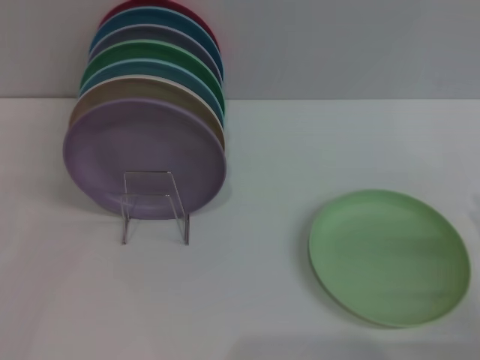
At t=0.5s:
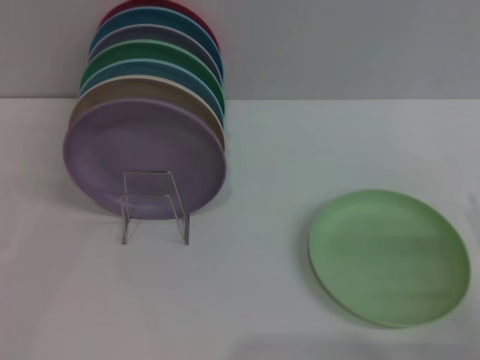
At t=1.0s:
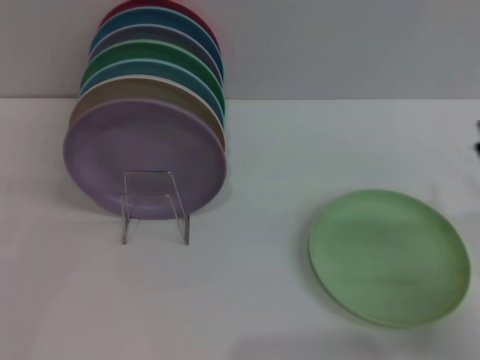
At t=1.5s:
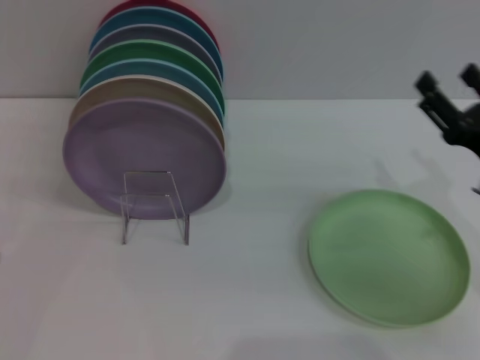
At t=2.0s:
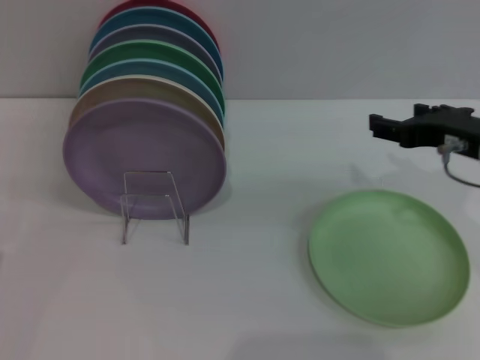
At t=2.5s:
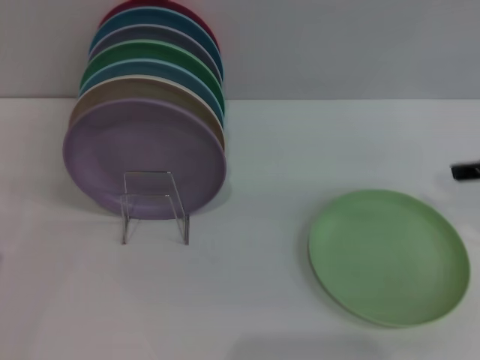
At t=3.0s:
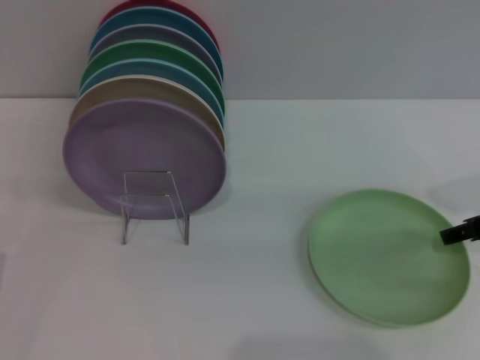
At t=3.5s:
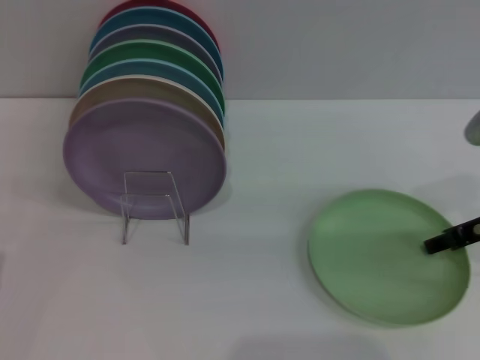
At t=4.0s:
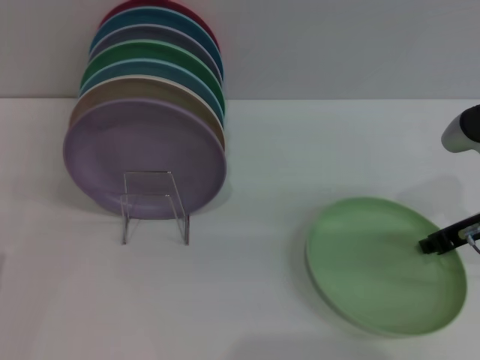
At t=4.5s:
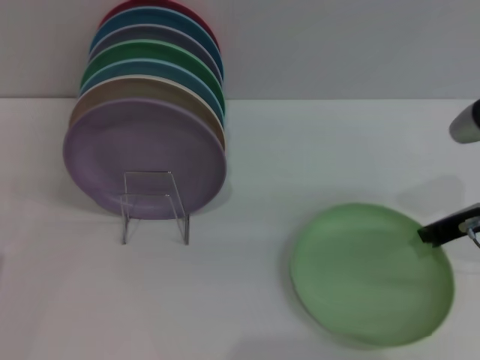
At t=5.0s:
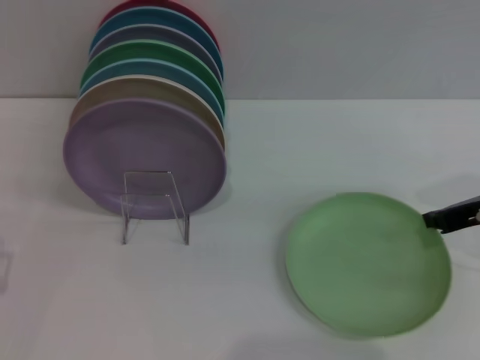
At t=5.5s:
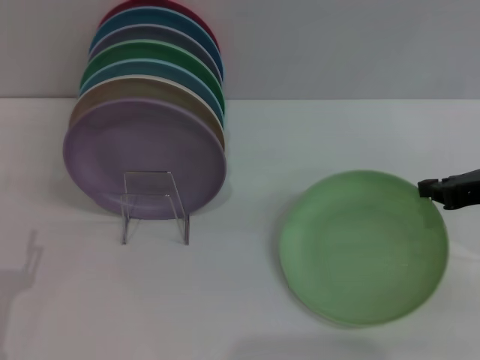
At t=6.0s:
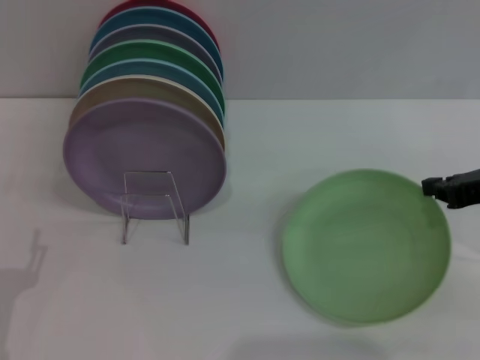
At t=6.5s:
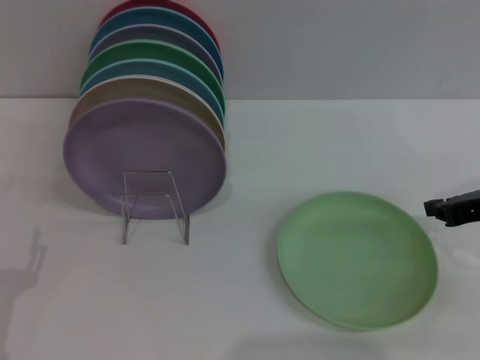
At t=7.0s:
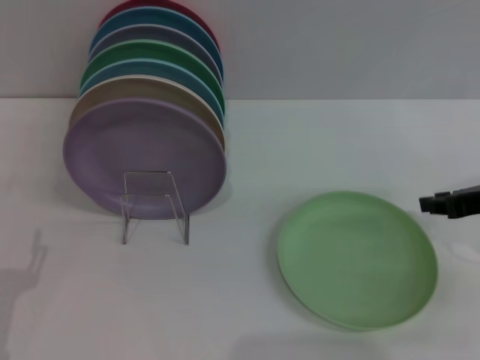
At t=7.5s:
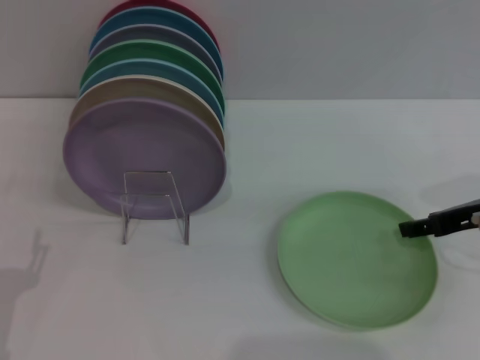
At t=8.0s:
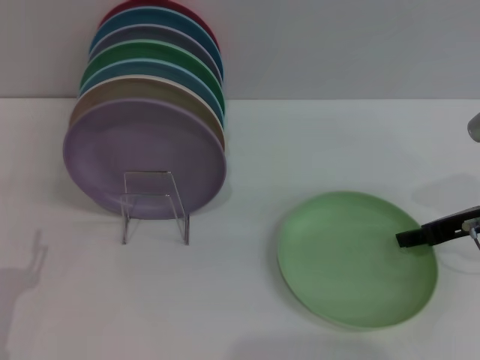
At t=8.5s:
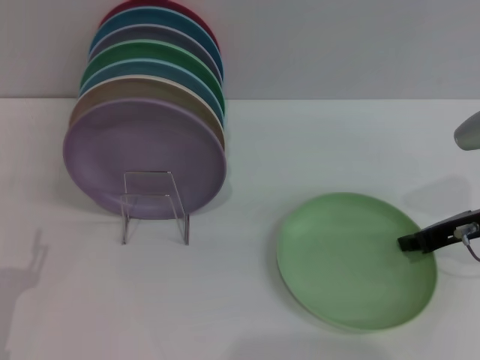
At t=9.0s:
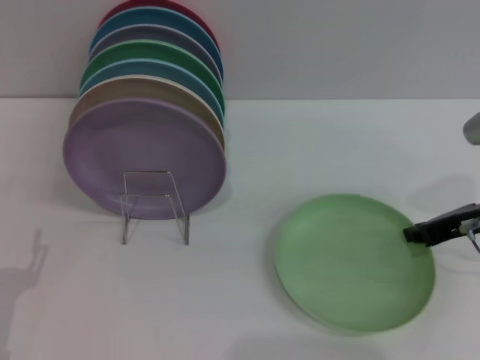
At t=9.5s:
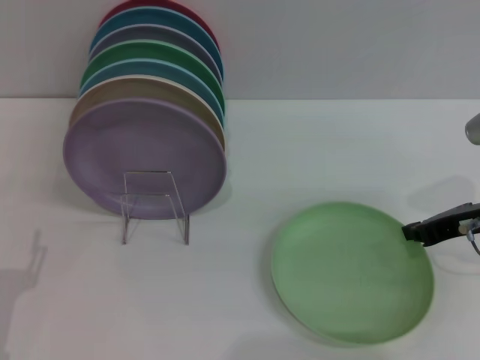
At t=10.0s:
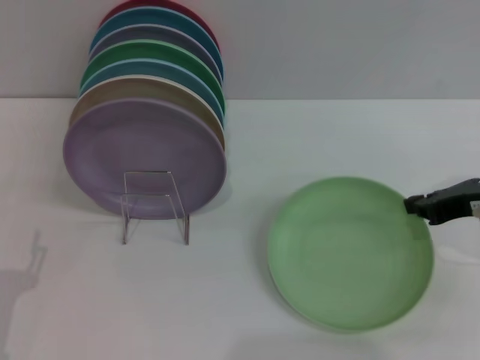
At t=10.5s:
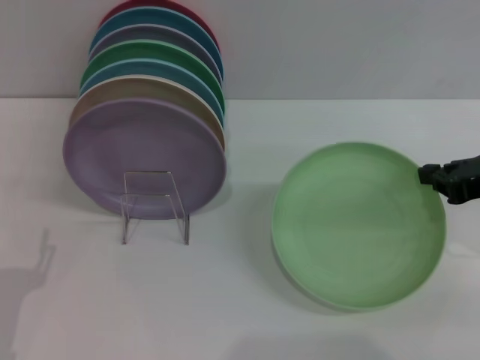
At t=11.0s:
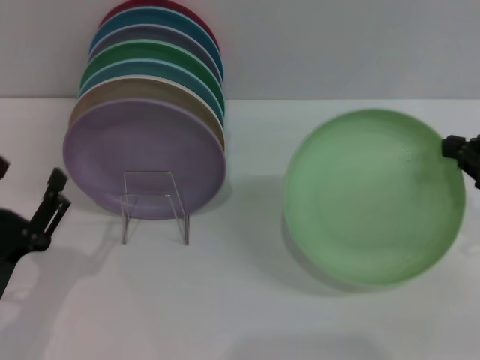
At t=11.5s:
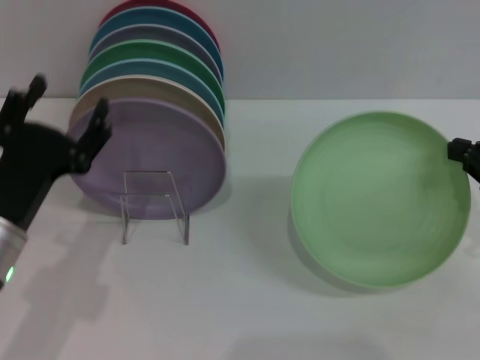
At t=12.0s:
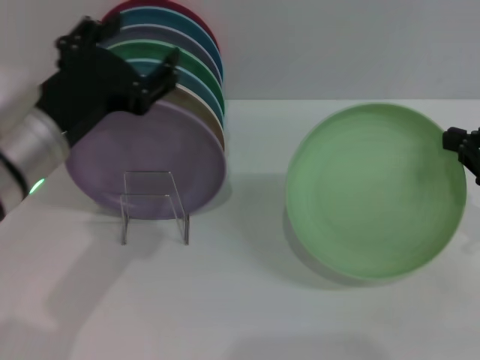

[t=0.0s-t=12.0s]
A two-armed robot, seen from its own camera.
Task of the whole recording: Grip the plate with one hand, pass it to the other, then set it on the shelf.
Step, t=0.0s to t=10.5s: Pick up the plate with the right gripper.
t=0.0s to t=2.0s: The right gripper shifts roughly 20 cm upward, forward and to the left.
t=2.0s to t=4.0s: The right gripper moves about 5 cm, and closes up.
t=4.0s to t=6.0s: The right gripper changes place by some 5 cm, and closes its fingers.
t=6.0s to t=8.0s: The right gripper moves roughly 5 cm, and opens.
t=8.0s to t=10.0s: The right gripper closes its fingers.
t=10.0s to t=12.0s: The left gripper travels upward, forward and to the right by approximately 25 cm. Meanwhile the right gripper shifts by approximately 5 cm.

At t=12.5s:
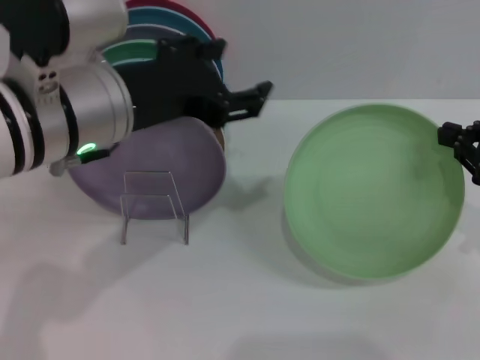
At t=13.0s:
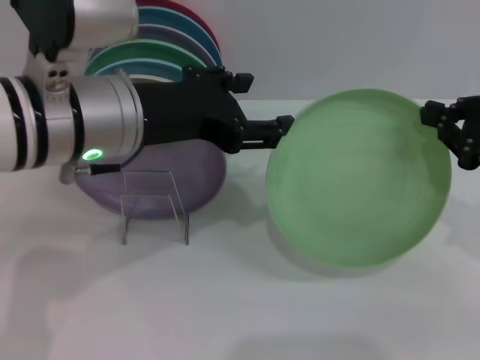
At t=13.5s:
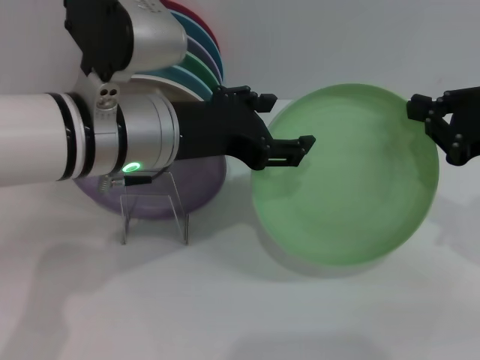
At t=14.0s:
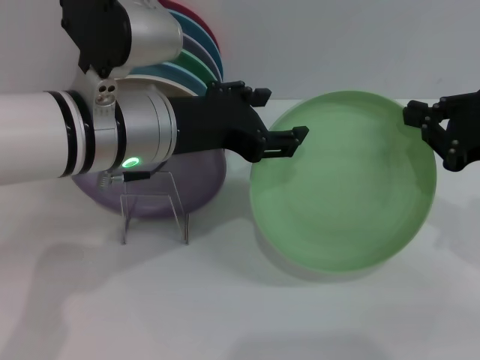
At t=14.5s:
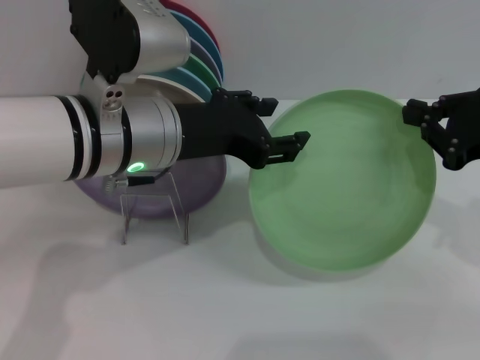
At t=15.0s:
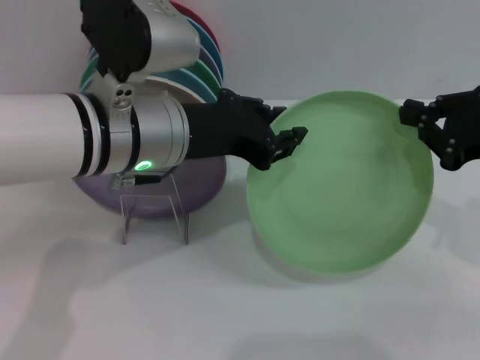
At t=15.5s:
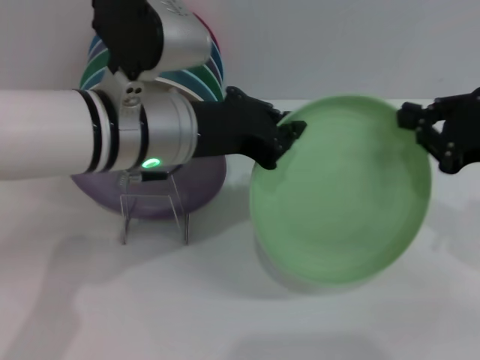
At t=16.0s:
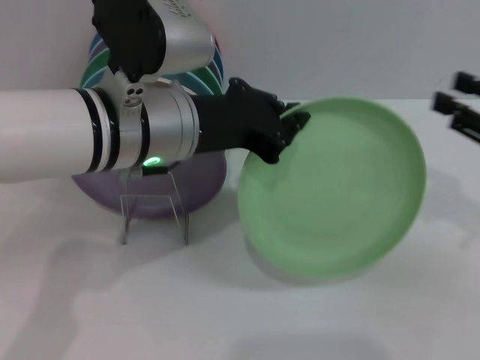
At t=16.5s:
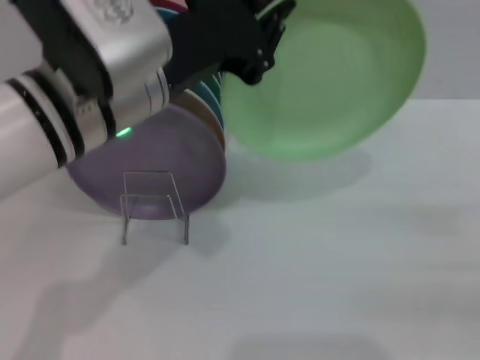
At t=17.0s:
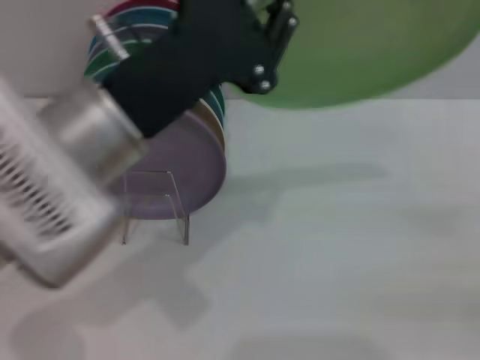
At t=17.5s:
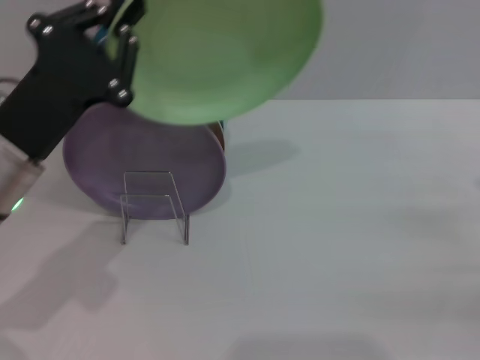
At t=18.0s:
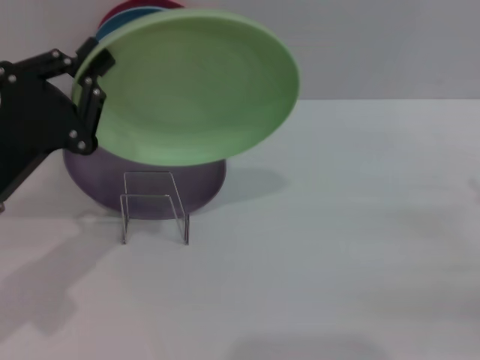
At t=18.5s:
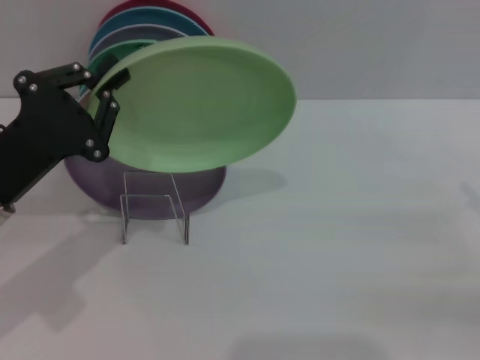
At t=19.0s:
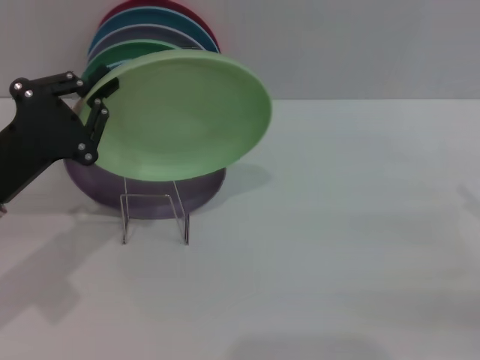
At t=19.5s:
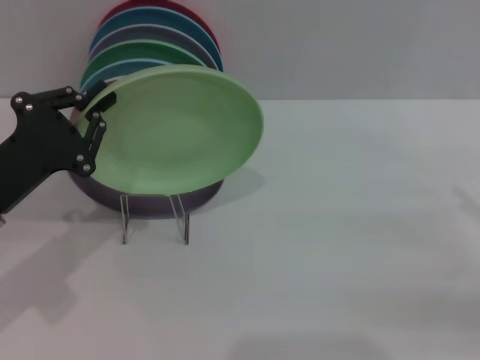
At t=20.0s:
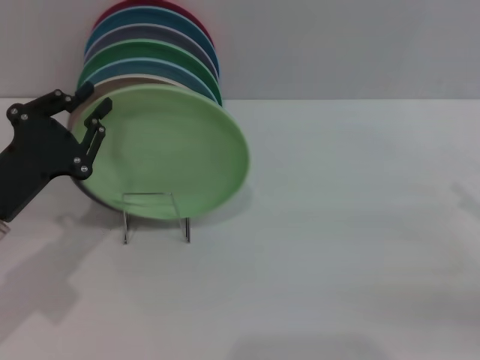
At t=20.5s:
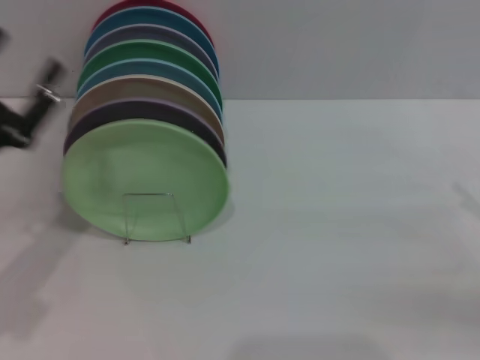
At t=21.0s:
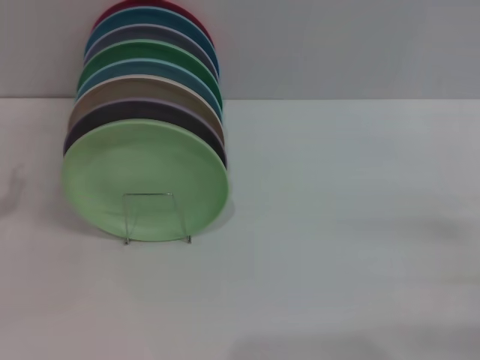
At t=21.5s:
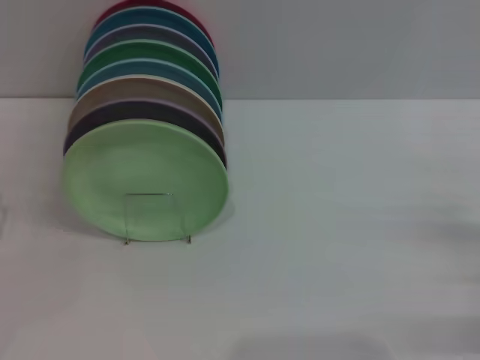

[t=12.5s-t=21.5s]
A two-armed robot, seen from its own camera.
Task of the whole recording: Grip the plate with one hand, pass it to the other, then set it on the shelf.
Step, t=12.5s to t=16.0s: Pass the plate from the right gripper to the left gripper.
Step, t=16.5s to t=20.0s: Place the plate on the shelf with the left gripper.
t=14.5s to t=17.0s: The left gripper goes roughly 5 cm backward, and closes its fingers; the right gripper shifts approximately 15 cm to the right, backward and downward, and opens its fingers.
t=17.0s to t=19.5s: The left gripper goes roughly 20 cm to the left and downward.
t=19.5s to t=21.5s: The right gripper moves downward, about 10 cm, while the left gripper moves downward, to the left and backward, roughly 10 cm, and opens its fingers.

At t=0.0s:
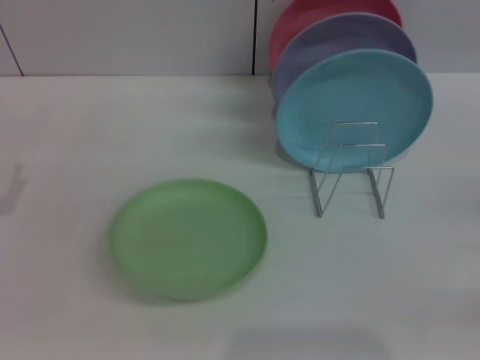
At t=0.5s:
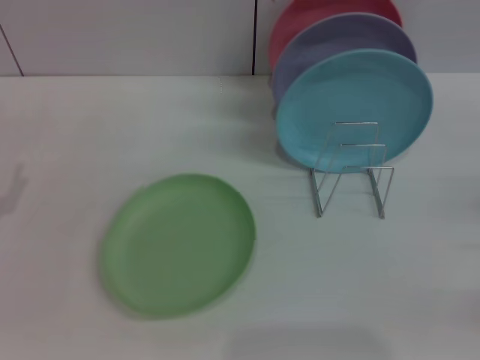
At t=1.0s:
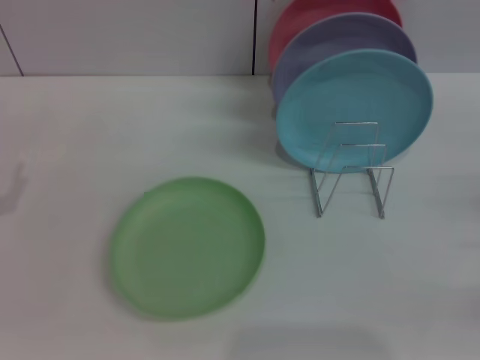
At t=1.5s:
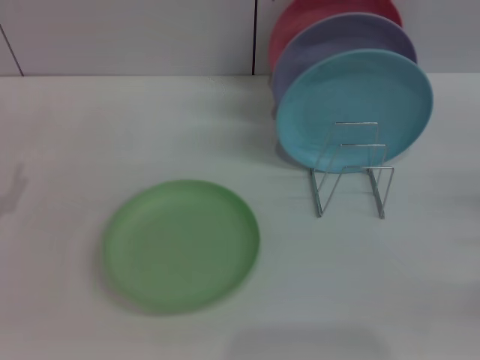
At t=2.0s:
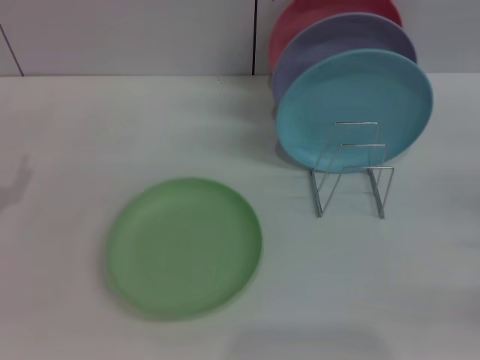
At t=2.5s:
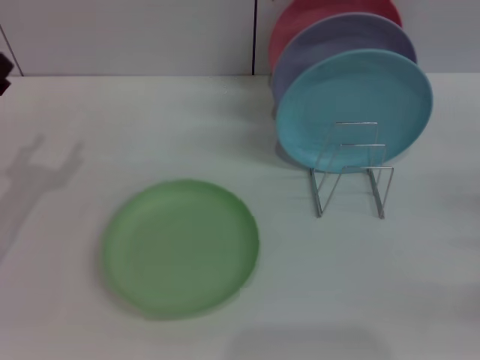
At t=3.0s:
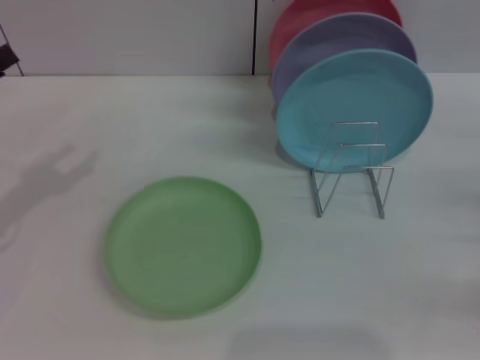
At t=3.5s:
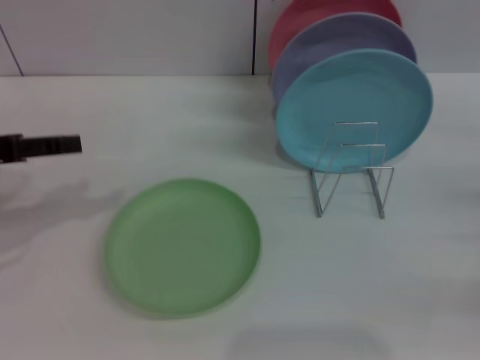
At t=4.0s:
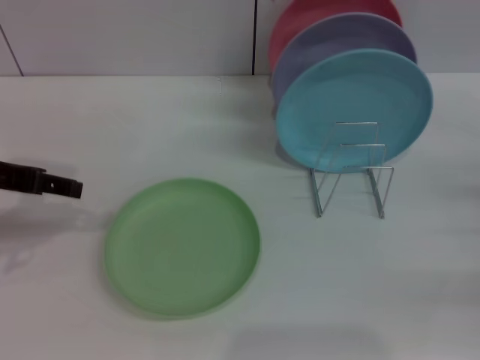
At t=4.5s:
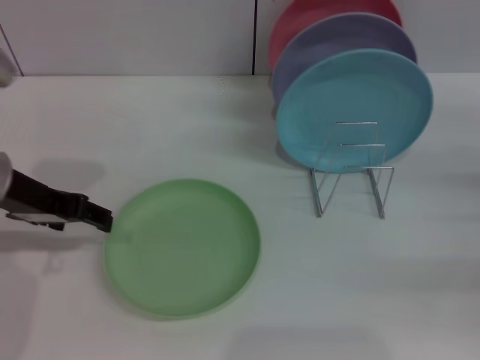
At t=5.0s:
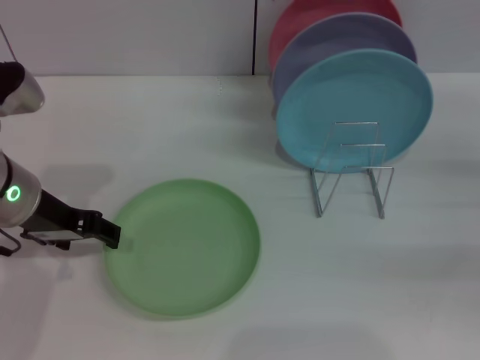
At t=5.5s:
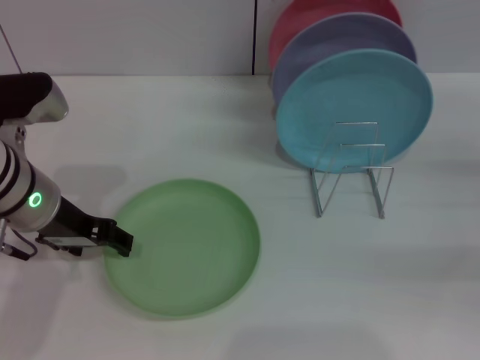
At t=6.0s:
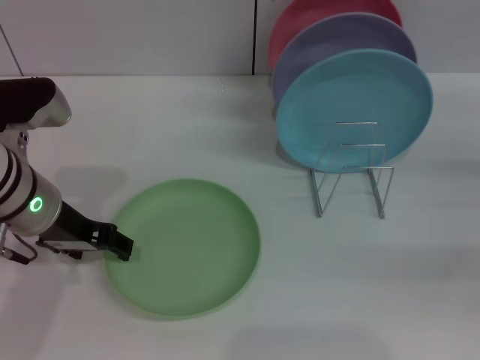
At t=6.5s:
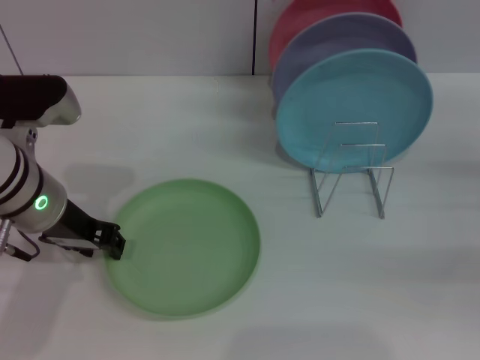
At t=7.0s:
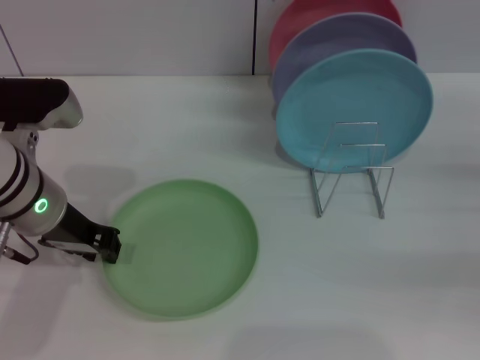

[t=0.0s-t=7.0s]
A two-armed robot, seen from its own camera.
Task of the whole recording: Grip the plate with one hand, pass it to the other, then set it on the shelf.
t=2.0s to t=3.5s: The left gripper shifts roughly 10 cm upward.
t=3.5s to t=5.0s: The left gripper shifts some 10 cm to the right.
t=5.0s to t=7.0s: The left gripper closes.
